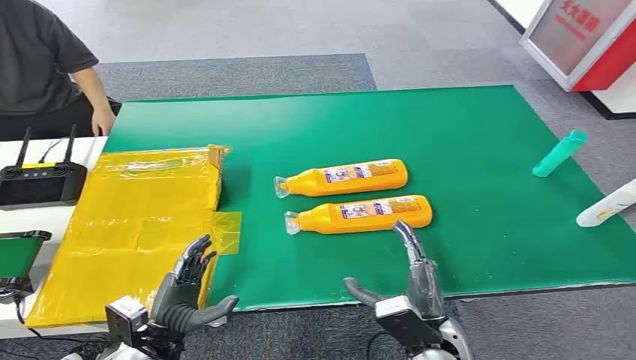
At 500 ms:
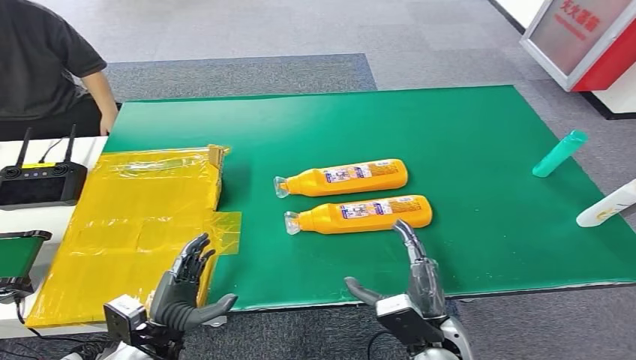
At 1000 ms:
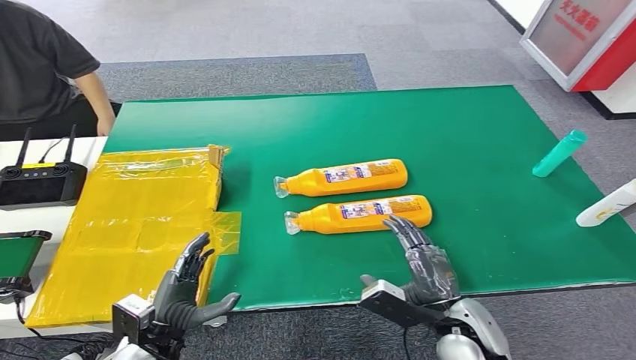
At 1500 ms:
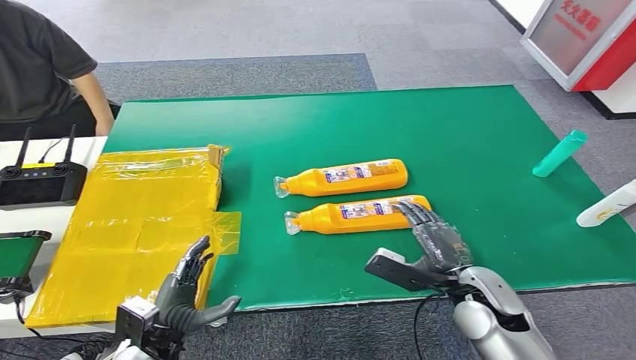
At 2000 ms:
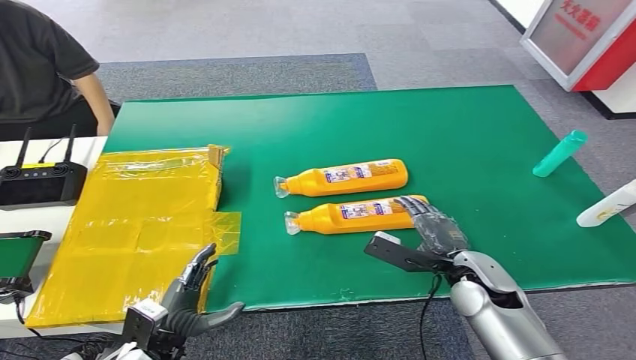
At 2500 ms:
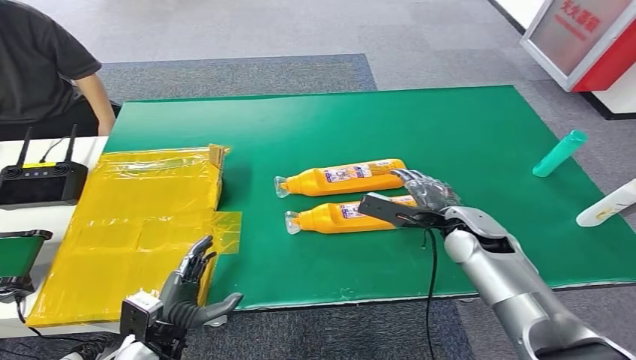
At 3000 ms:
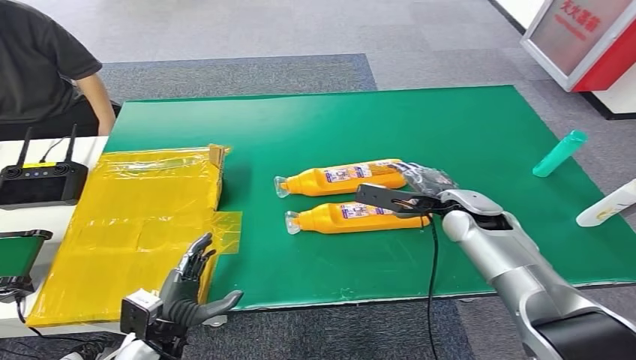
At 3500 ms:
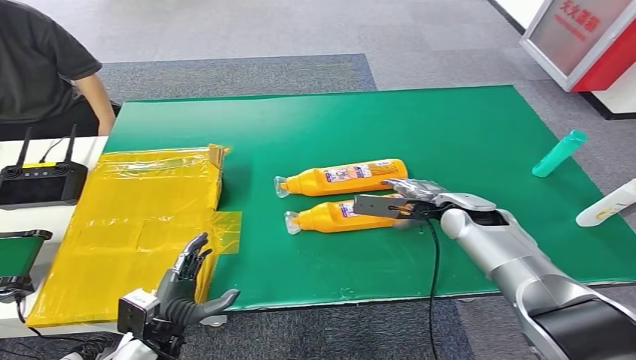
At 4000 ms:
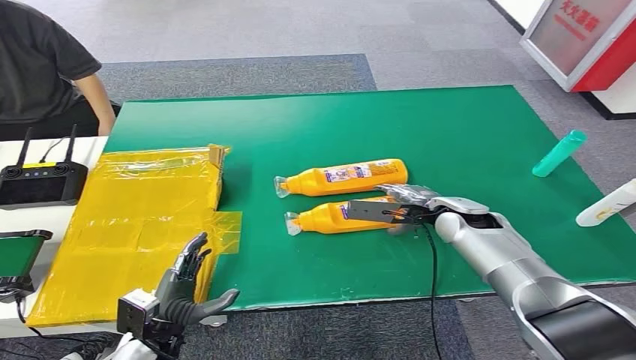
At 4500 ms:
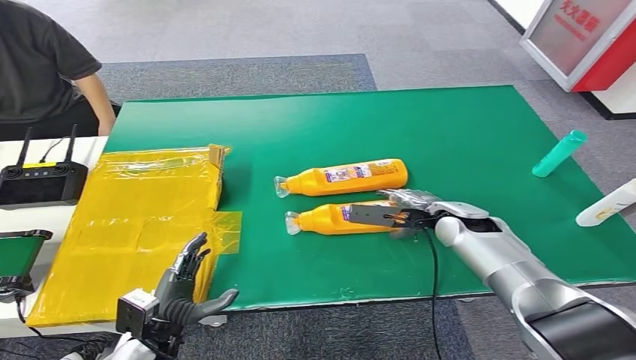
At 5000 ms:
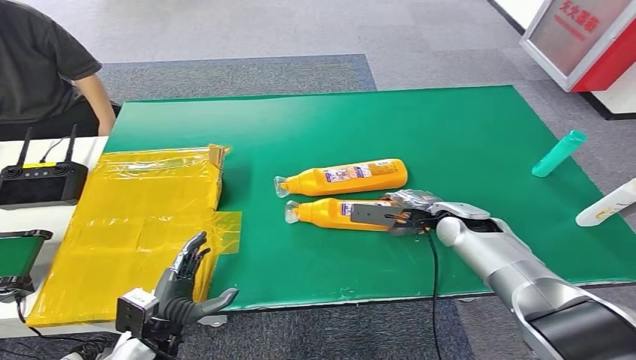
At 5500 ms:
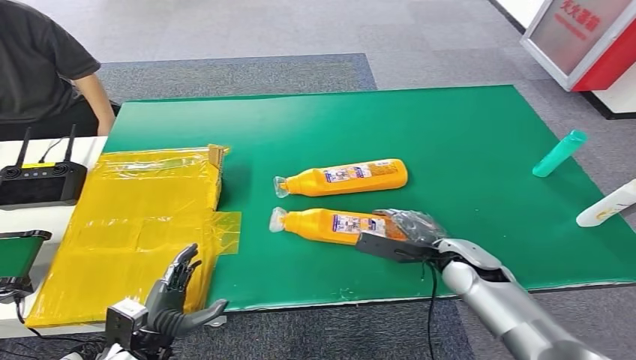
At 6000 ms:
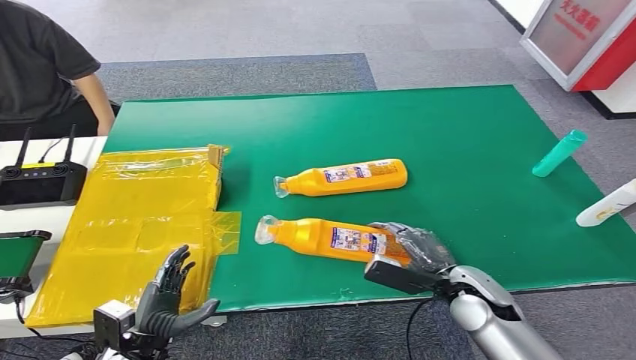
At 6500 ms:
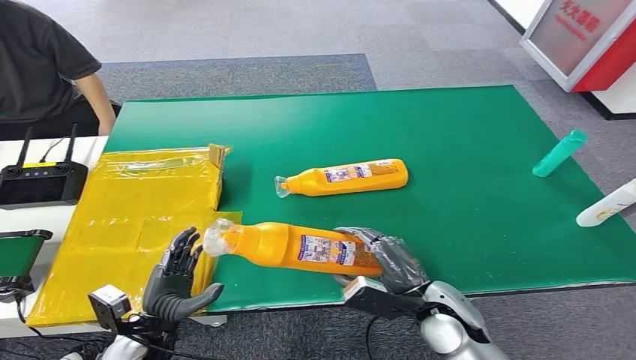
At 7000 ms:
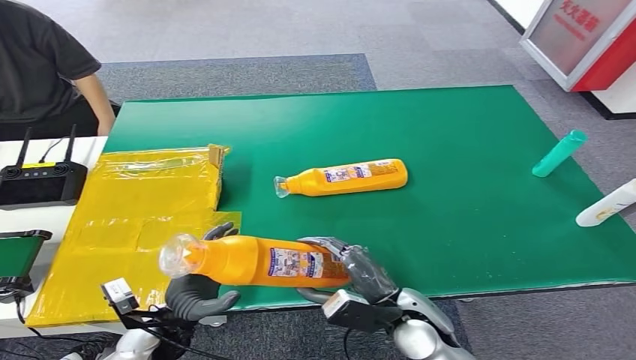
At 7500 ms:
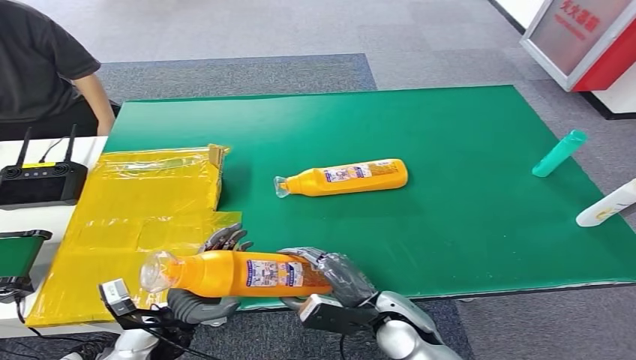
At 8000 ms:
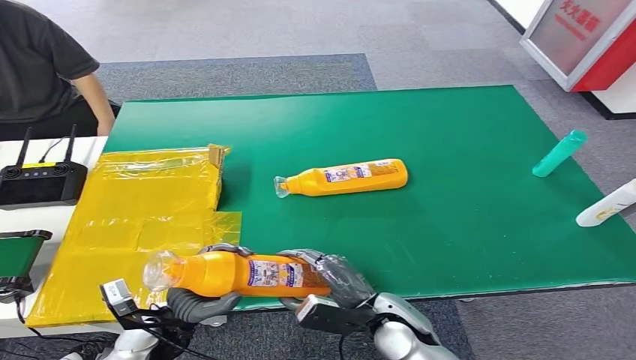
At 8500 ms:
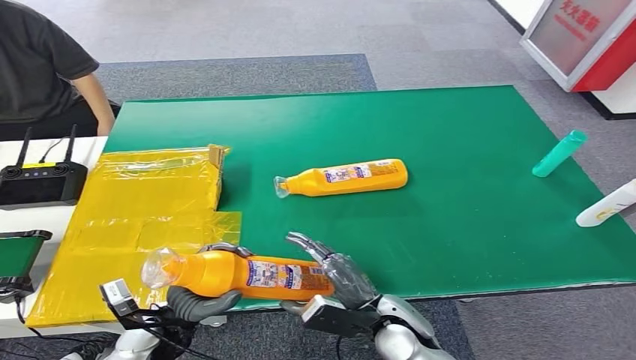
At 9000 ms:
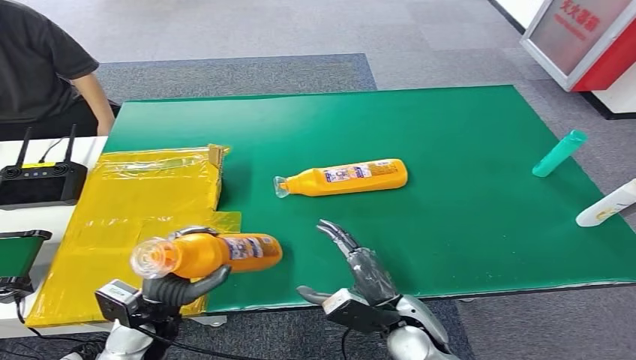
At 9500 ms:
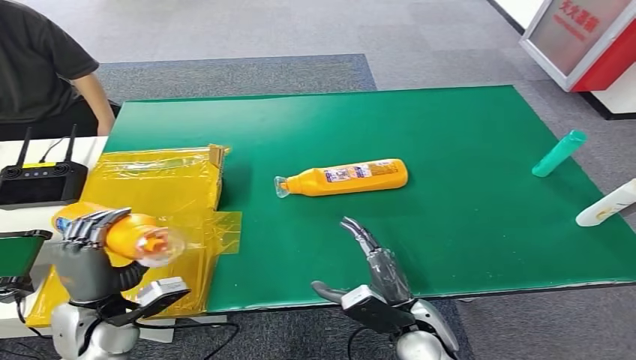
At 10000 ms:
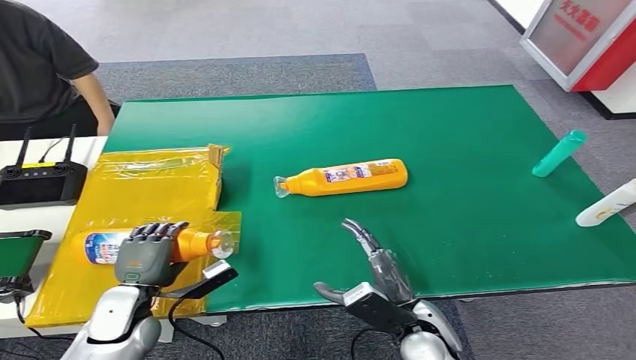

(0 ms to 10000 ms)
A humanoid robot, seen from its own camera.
Step, 0 ms - 6000 ms: Pick up the bottle from the table.
Step, 6500 ms - 10000 ms: Turn the bottle to the front side.
2000 ms - 4000 ms: The right hand travels forward by some 10 cm.
4000 ms - 6000 ms: The right hand goes roughly 15 cm backward and downward.
6000 ms - 8000 ms: The right hand travels to the left by some 10 cm. The left hand shifts by about 10 cm.
8000 ms - 10000 ms: The left hand heads to the left, covering roughly 5 cm.

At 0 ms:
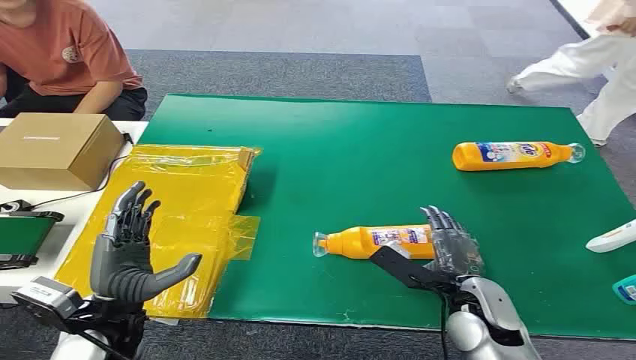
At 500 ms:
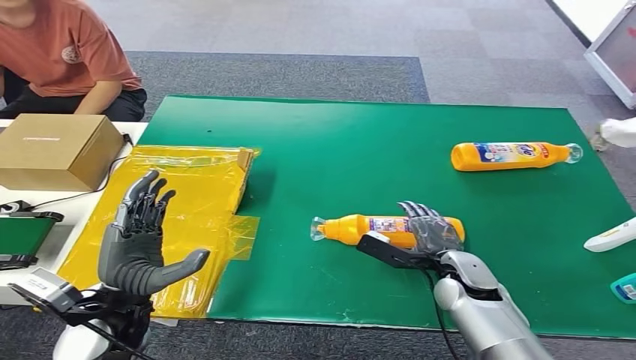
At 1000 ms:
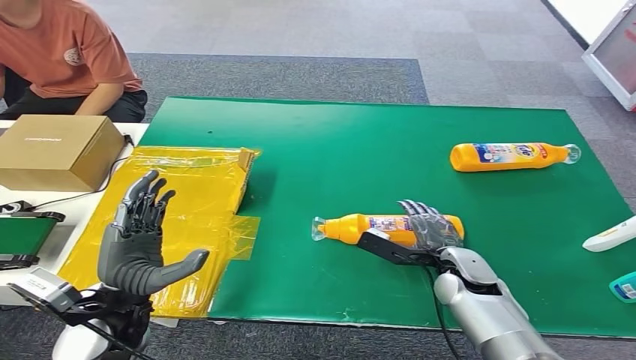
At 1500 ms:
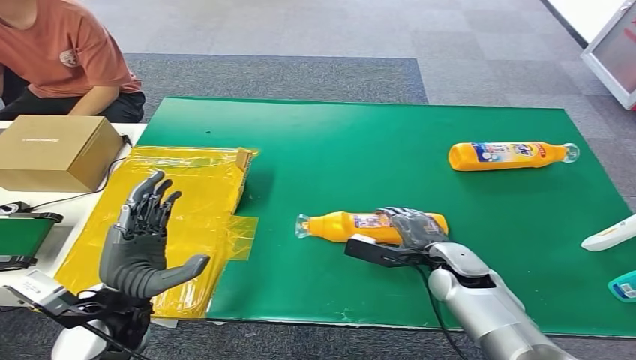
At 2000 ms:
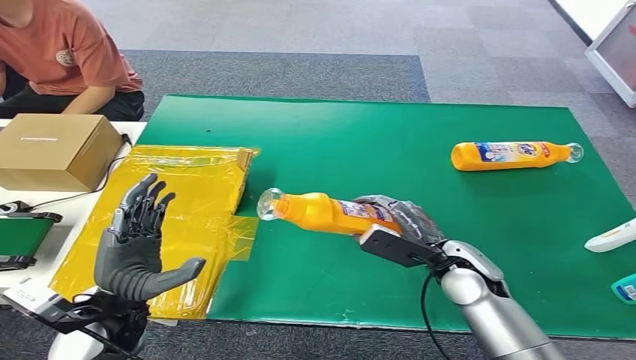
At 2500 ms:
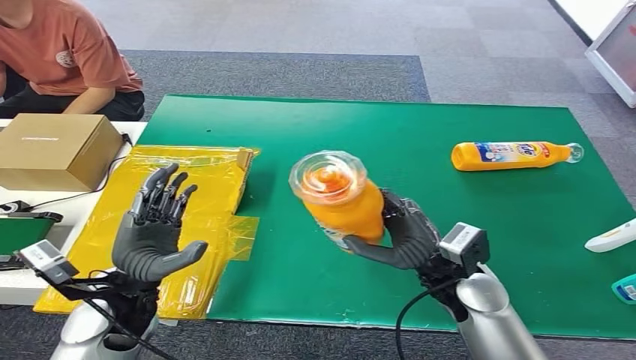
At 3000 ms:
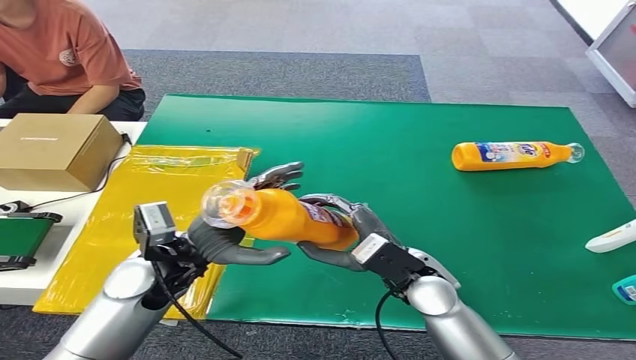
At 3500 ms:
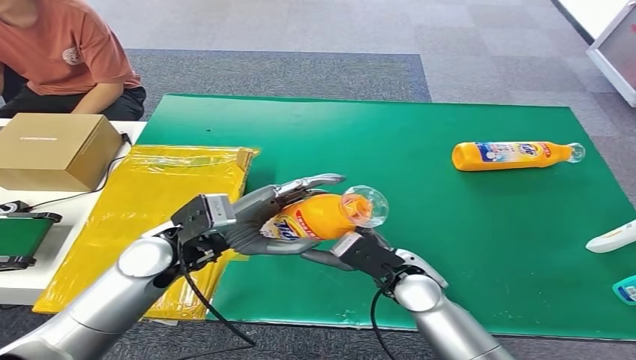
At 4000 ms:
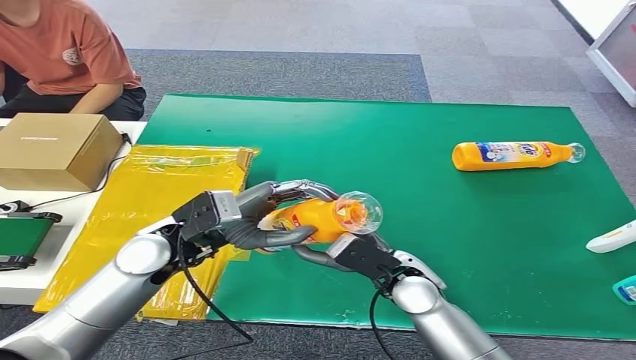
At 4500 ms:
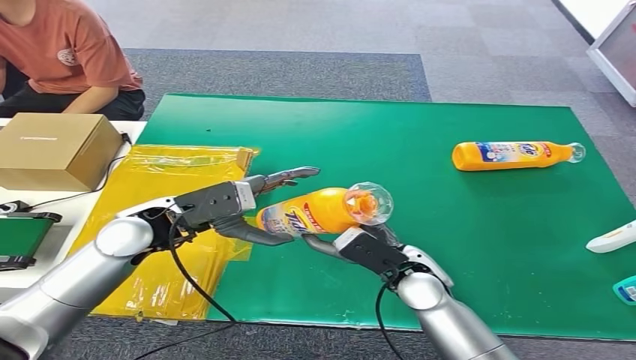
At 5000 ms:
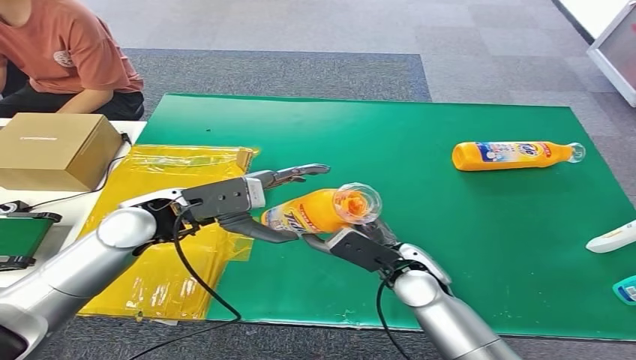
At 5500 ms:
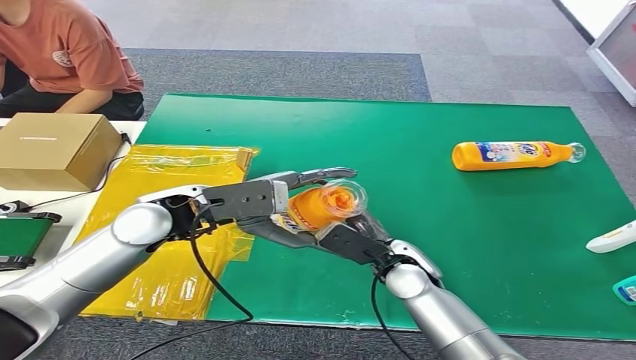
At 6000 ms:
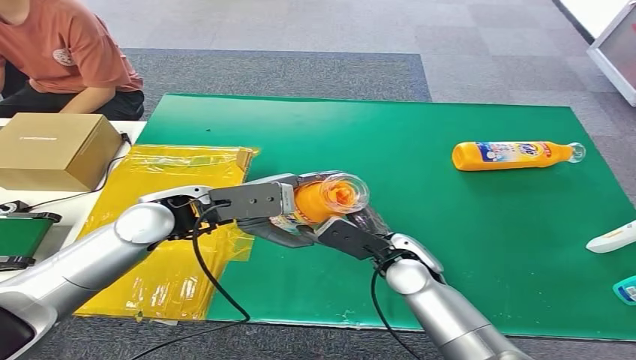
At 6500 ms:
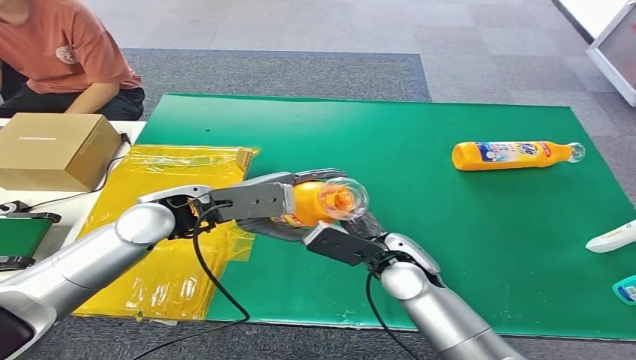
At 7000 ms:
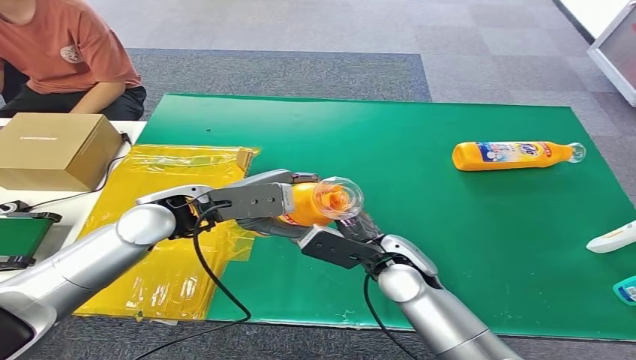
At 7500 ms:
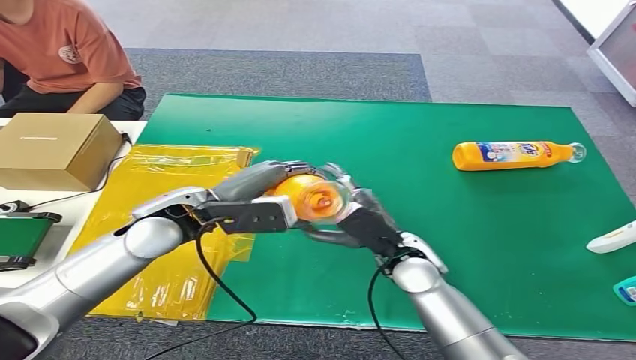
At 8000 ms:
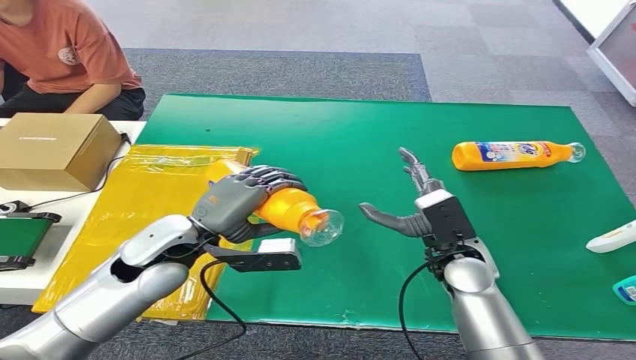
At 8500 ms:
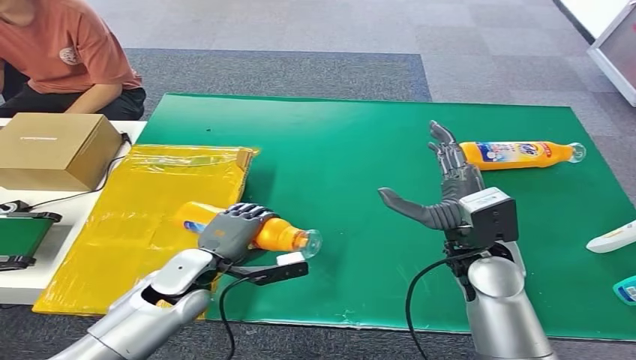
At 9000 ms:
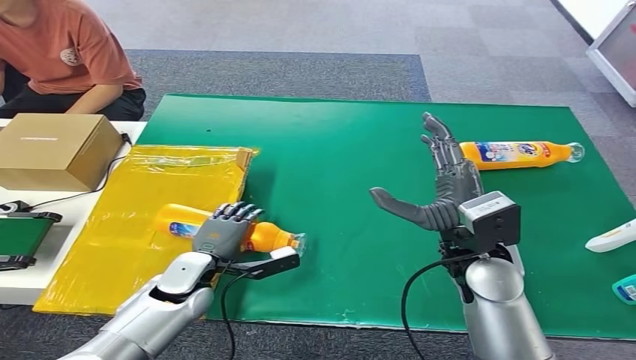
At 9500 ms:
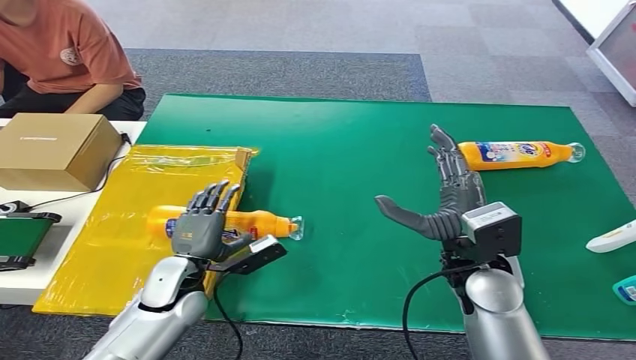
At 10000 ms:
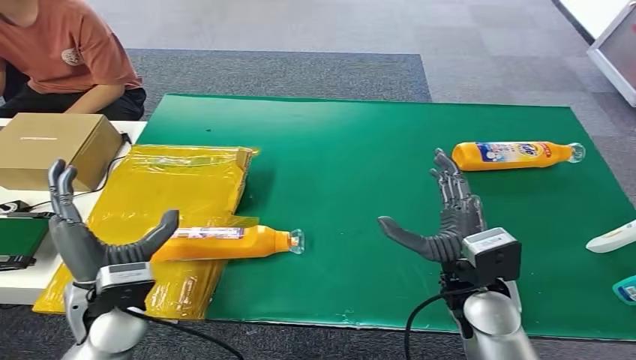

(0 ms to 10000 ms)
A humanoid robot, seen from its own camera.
Step, 0 ms - 2000 ms: Pick up the bottle from the table.
Step, 5000 ms - 9500 ms: Turn the bottle to the front side.
